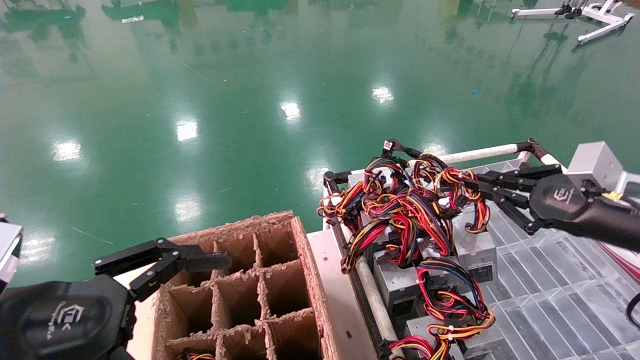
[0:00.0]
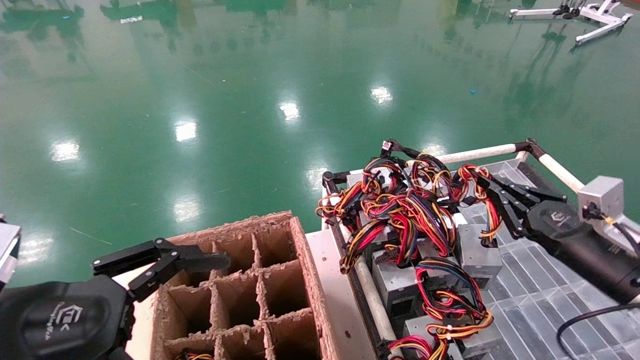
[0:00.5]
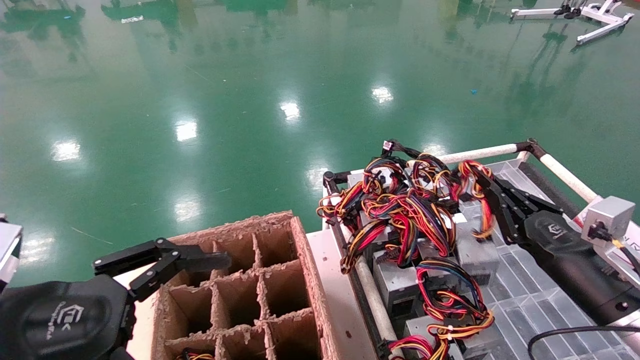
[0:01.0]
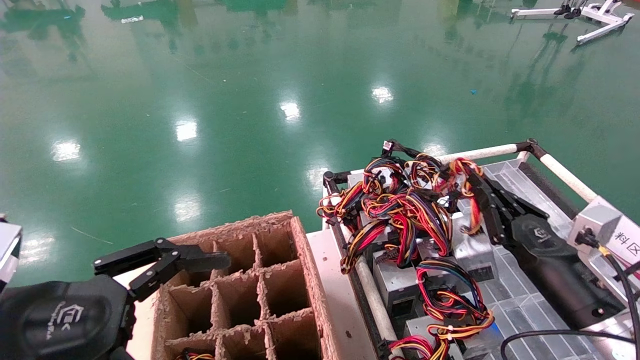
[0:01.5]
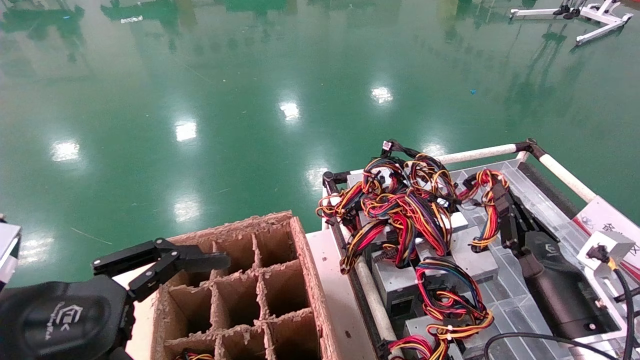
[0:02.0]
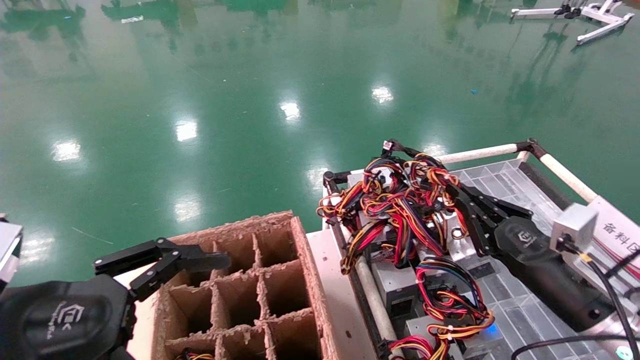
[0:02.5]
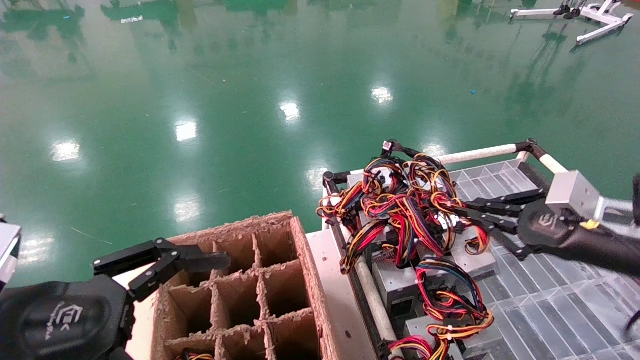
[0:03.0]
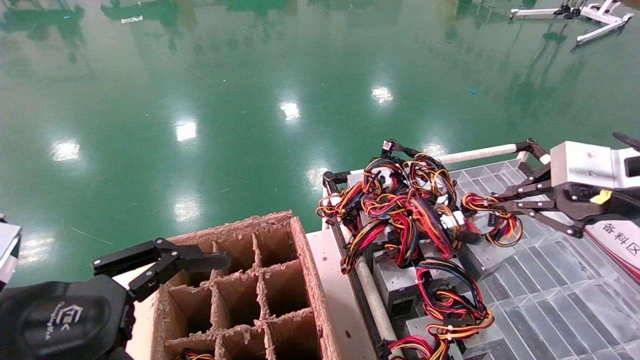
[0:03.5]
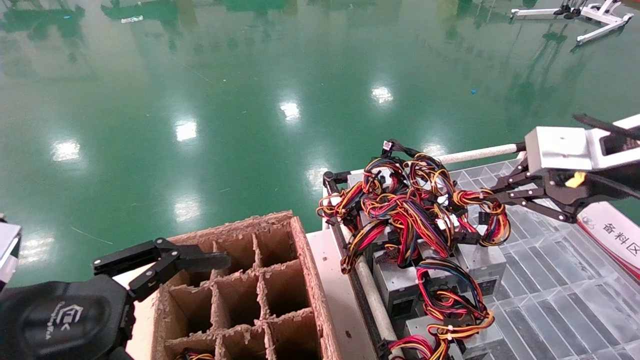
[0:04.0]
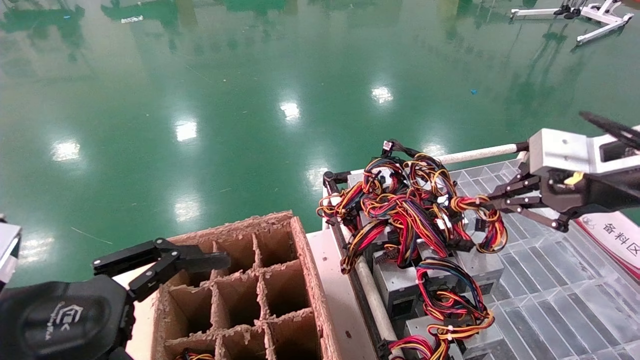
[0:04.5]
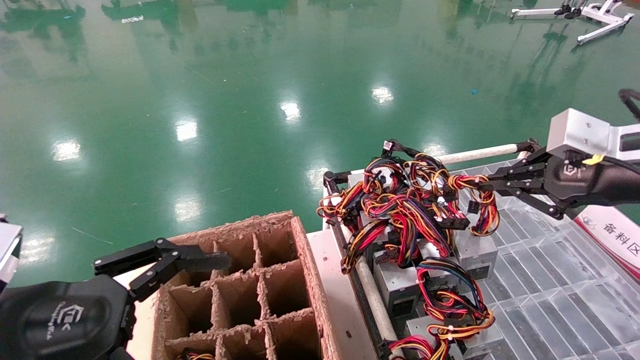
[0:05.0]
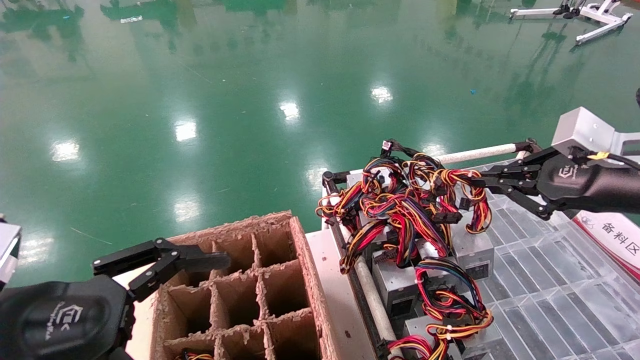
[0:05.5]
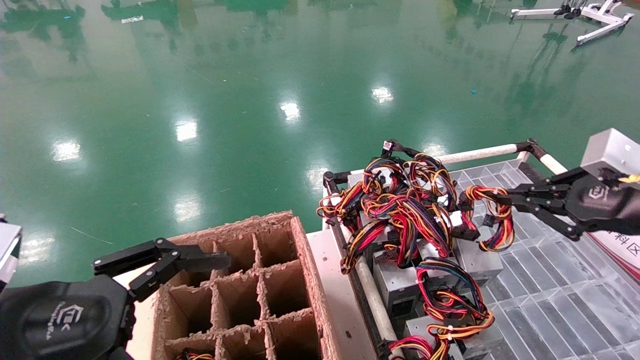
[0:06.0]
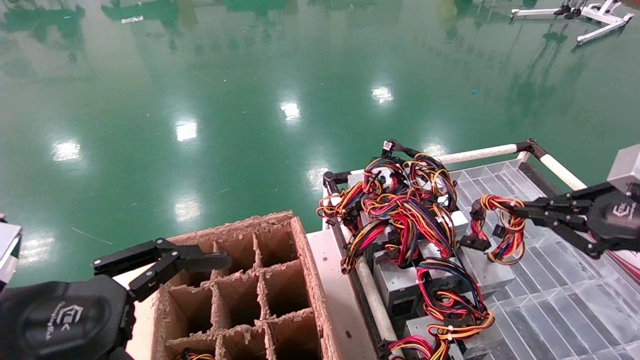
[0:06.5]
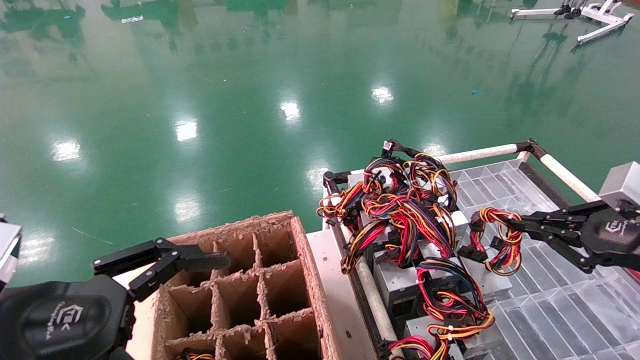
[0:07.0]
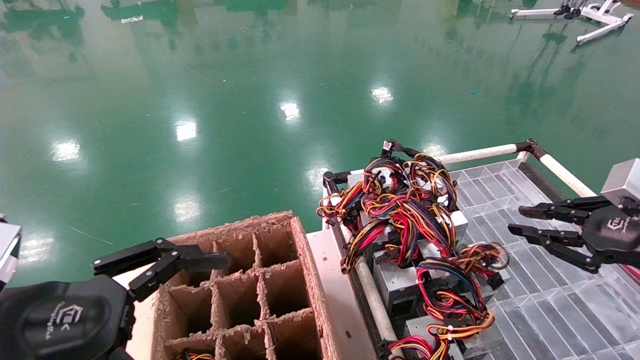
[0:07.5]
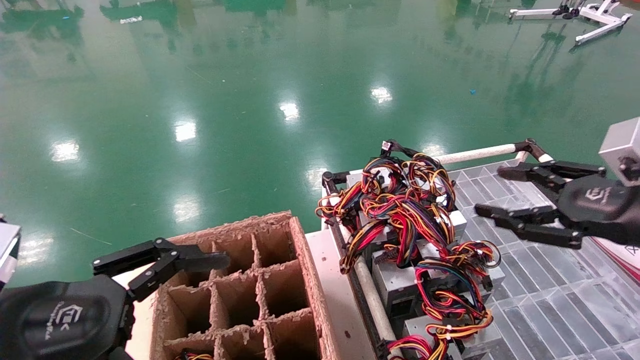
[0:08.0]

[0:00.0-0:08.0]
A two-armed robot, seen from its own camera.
Step, 0:00.0 to 0:07.0: Place the power supply on the operating table.
0:00.0 to 0:02.0: The right gripper moves downward, about 15 cm.
0:02.0 to 0:04.0: The right gripper is displaced upward by about 25 cm.
0:04.0 to 0:06.0: The right gripper travels to the right and downward by roughly 10 cm.
0:06.0 to 0:08.0: The right gripper opens its fingers.
